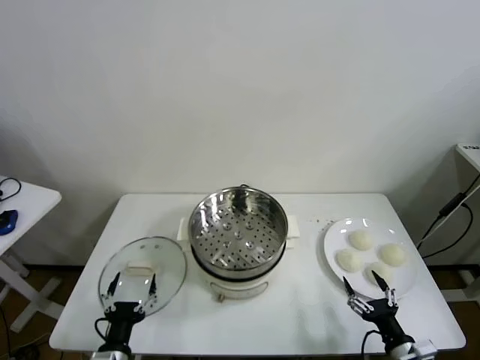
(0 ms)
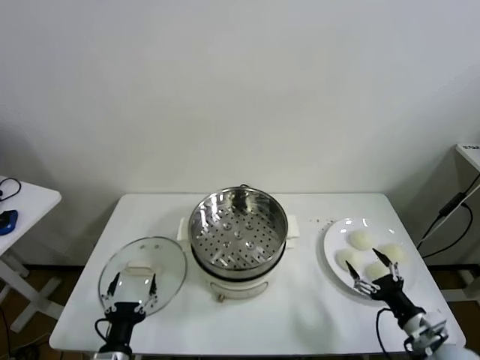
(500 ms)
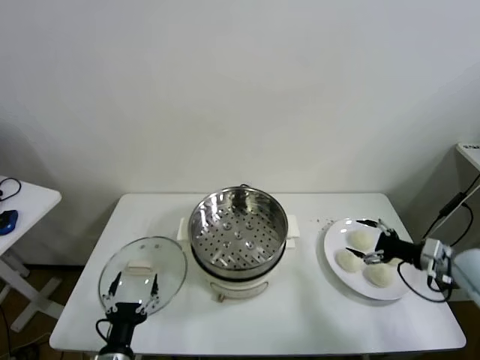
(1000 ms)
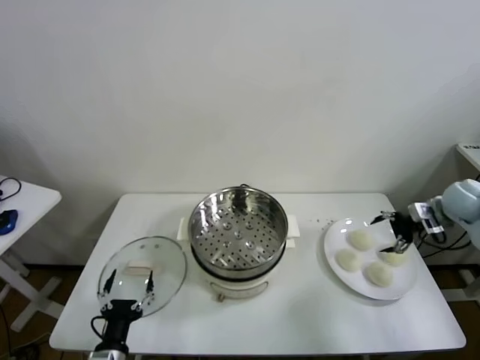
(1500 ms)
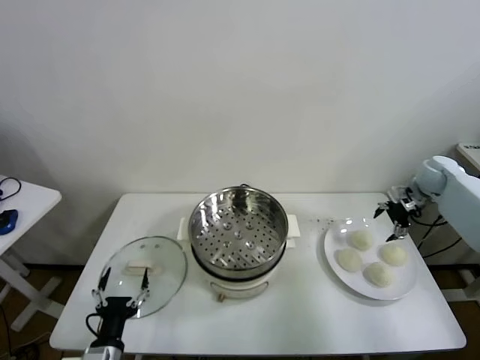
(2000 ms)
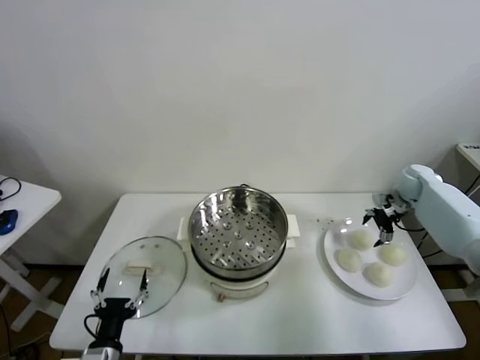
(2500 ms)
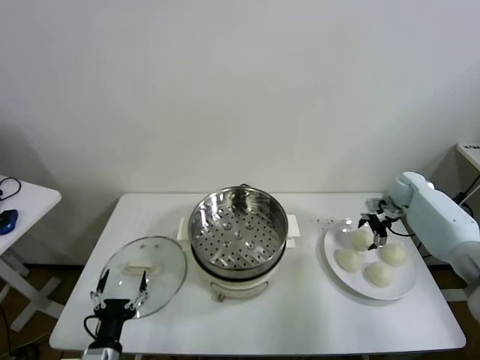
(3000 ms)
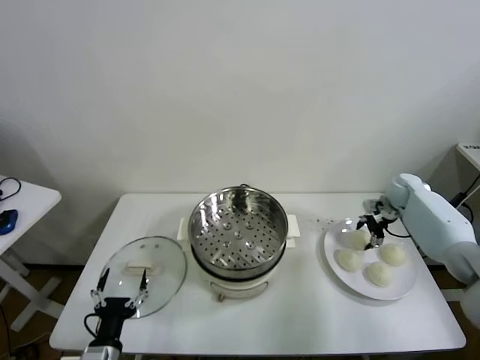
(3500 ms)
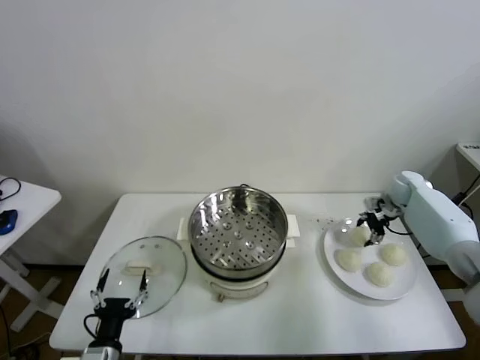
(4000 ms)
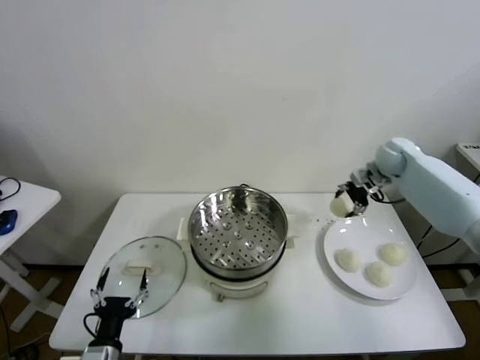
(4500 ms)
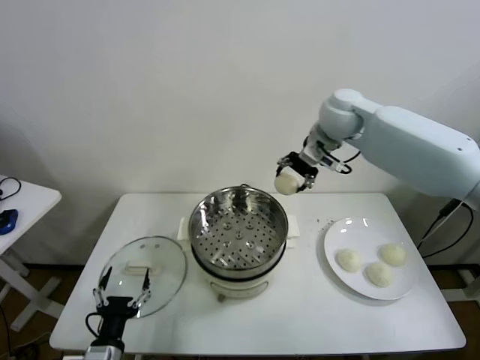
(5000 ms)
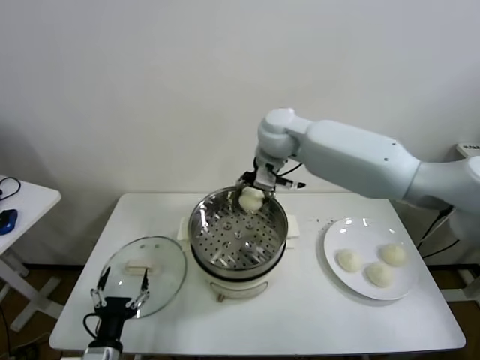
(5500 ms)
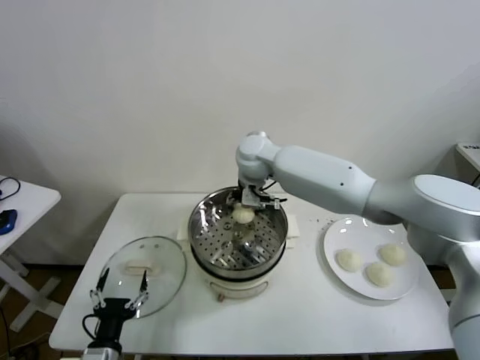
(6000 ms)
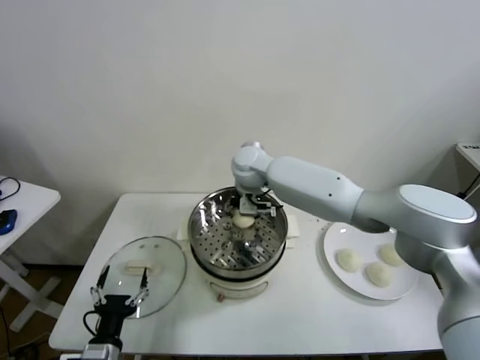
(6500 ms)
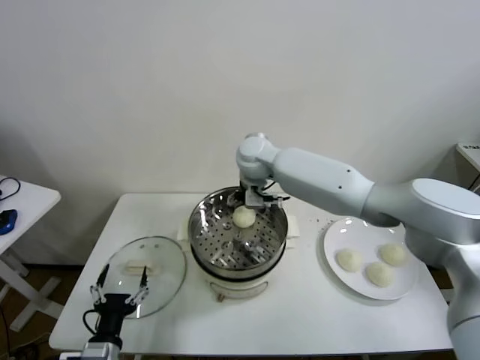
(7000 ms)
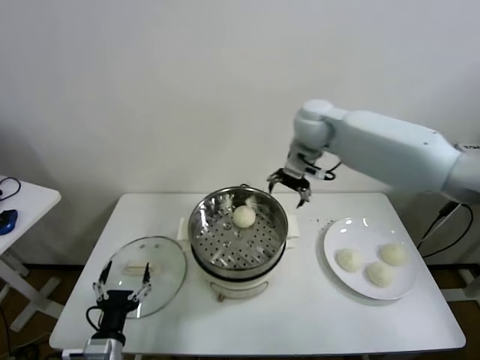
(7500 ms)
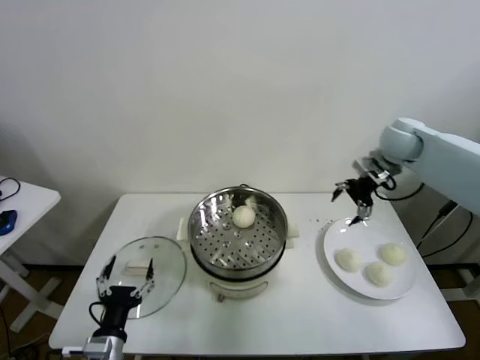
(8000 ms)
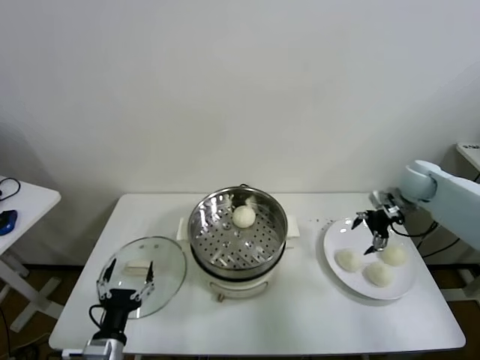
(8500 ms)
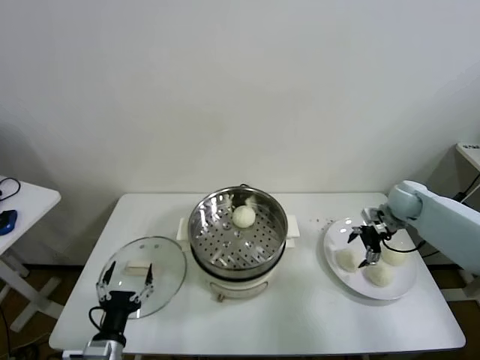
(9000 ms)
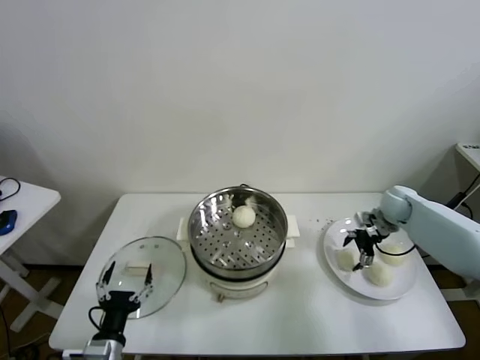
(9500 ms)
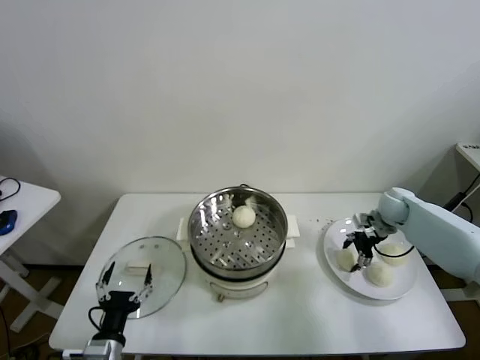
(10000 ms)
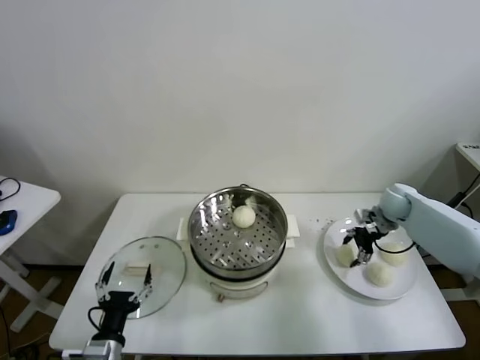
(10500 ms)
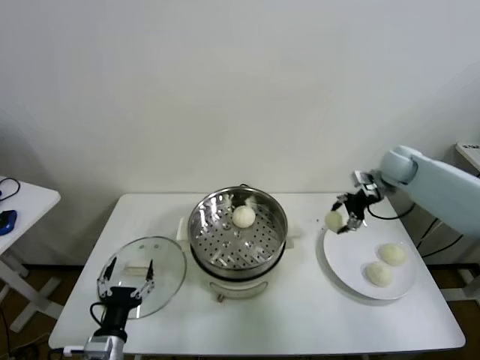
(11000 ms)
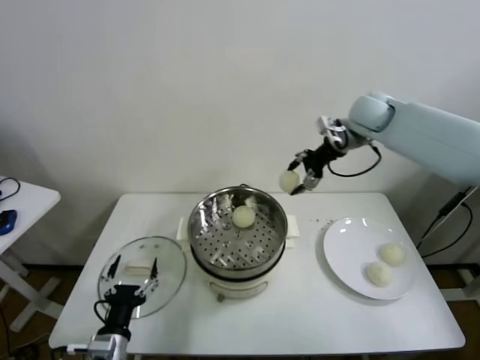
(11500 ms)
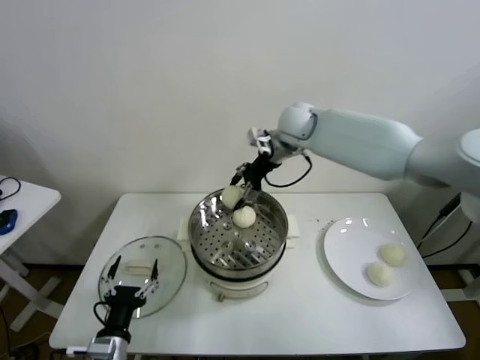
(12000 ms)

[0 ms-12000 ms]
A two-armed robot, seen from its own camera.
Task of the whole recording: take steamed baozi put them in steamer.
Step, 0 ms to 3500 ms: Grasp the baozi in the plate with right gripper.
Step, 4000 ms to 6500 ms: Place the baozi on the steamer with right gripper.
Step, 7500 ms to 10000 ms: Grasp the baozi in the plate with right gripper.
2000 ms to 4000 ms: The right gripper travels downward by some 5 cm, and closes.
4000 ms to 6000 ms: The right gripper shifts some 40 cm to the left.
6000 ms to 8000 ms: The right gripper heads to the right, covering some 35 cm, and opens.
8000 ms to 10000 ms: The right gripper shifts approximately 20 cm downward, and closes up.
10000 ms to 12000 ms: The right gripper goes roughly 35 cm to the left and upward.

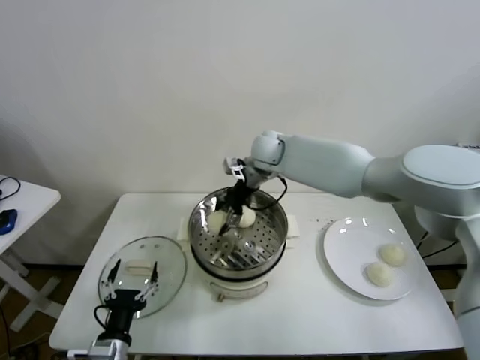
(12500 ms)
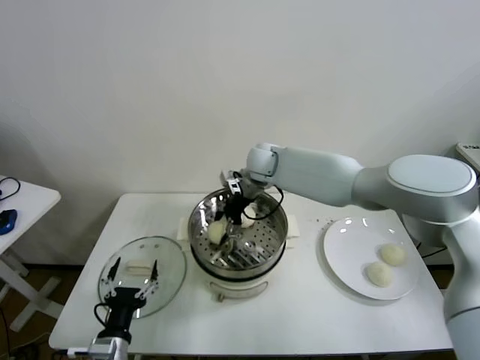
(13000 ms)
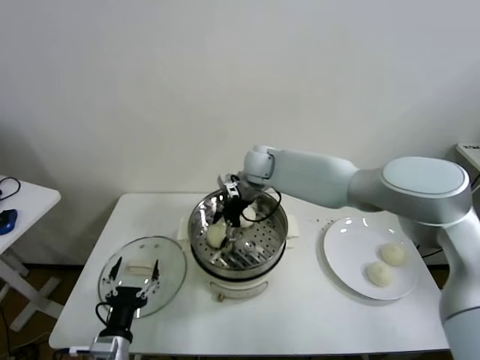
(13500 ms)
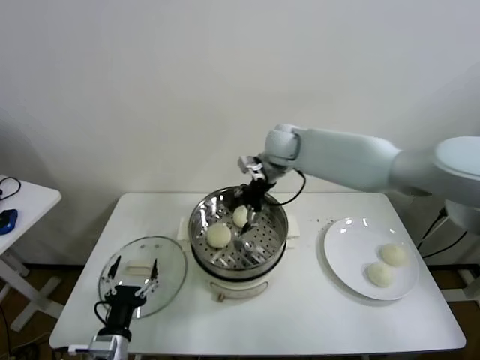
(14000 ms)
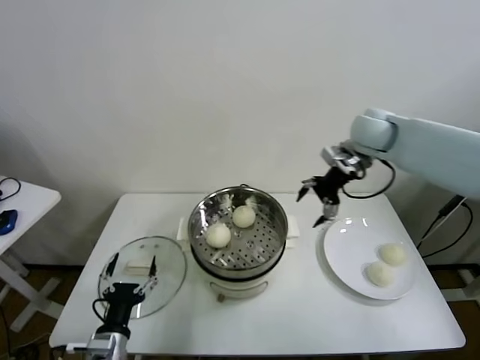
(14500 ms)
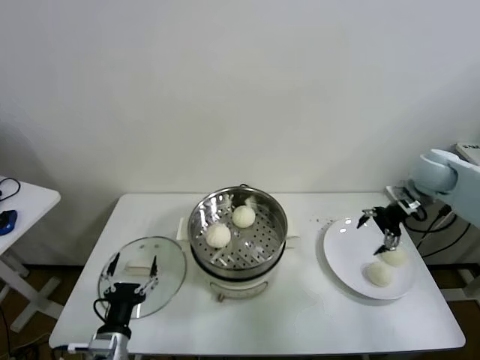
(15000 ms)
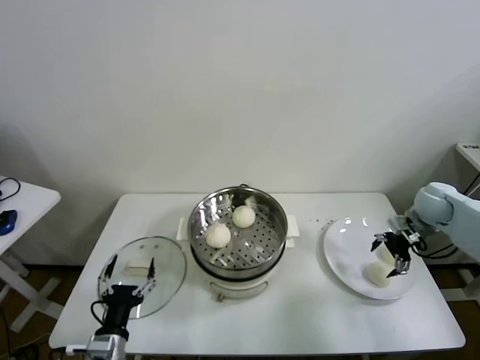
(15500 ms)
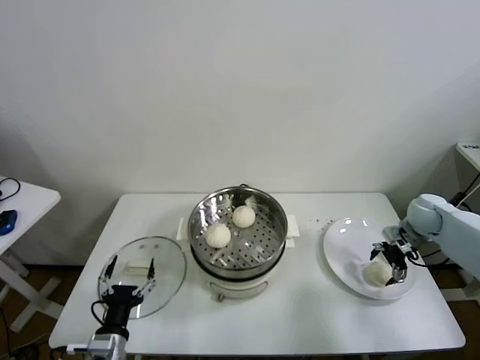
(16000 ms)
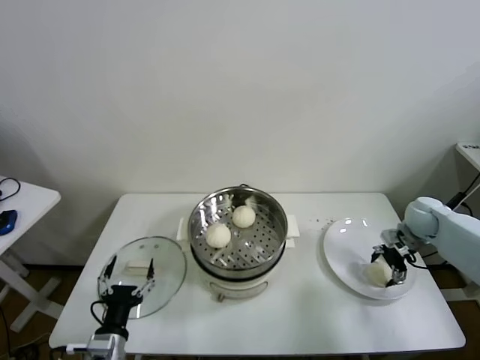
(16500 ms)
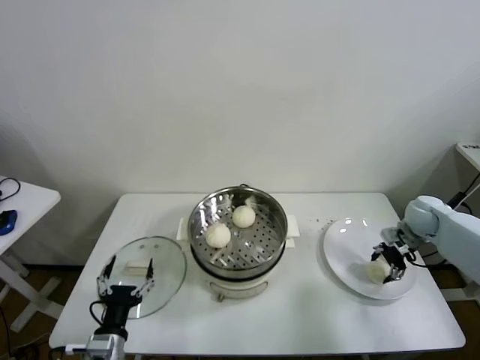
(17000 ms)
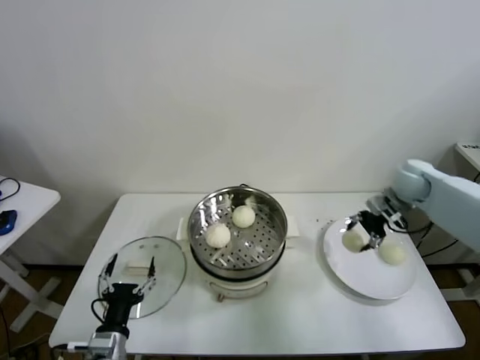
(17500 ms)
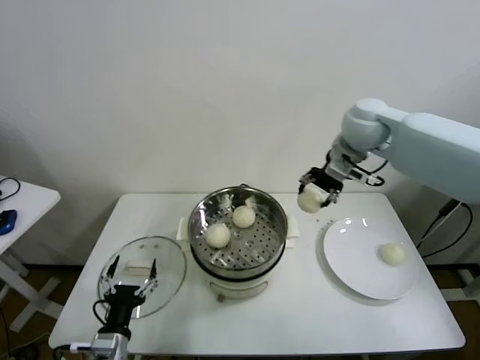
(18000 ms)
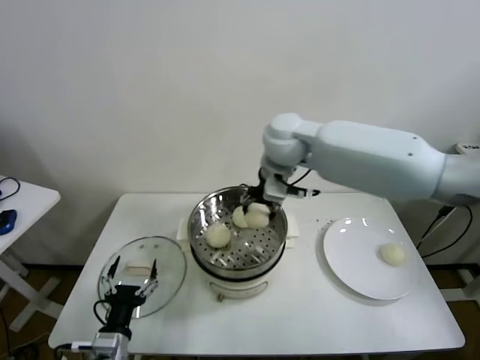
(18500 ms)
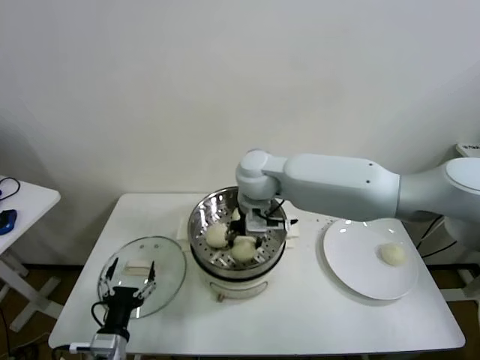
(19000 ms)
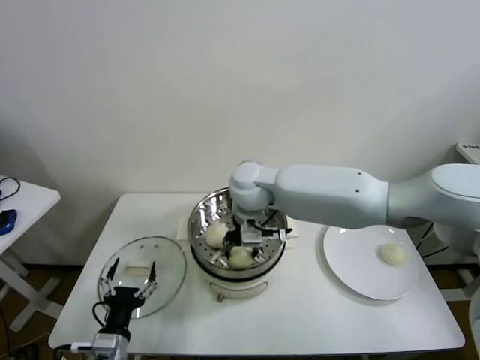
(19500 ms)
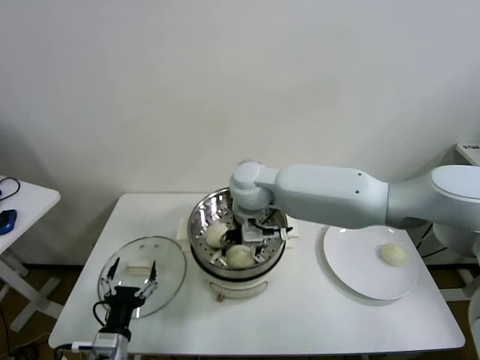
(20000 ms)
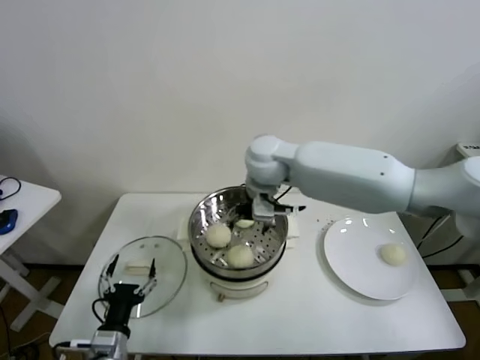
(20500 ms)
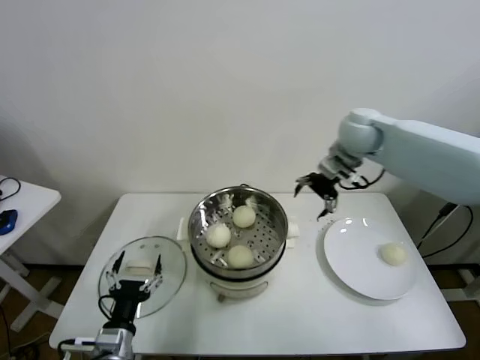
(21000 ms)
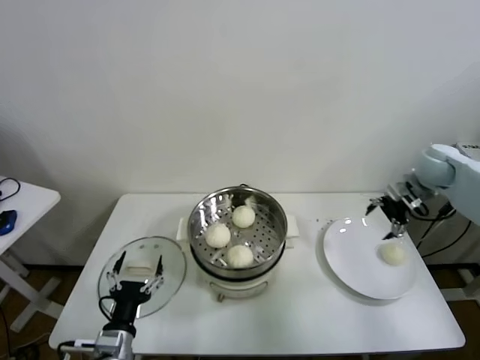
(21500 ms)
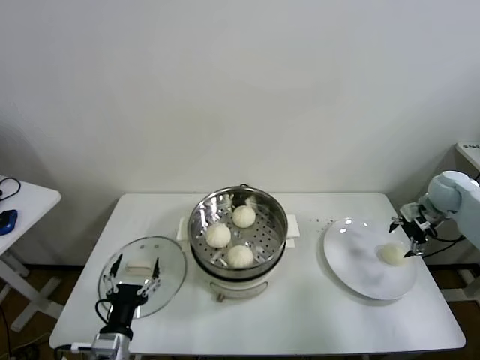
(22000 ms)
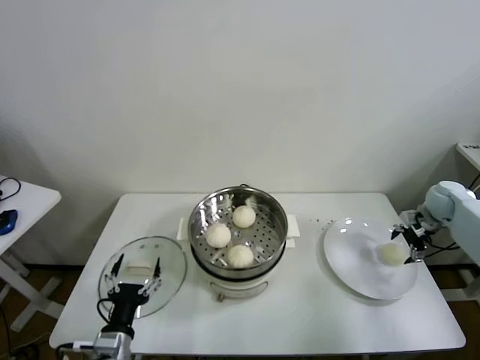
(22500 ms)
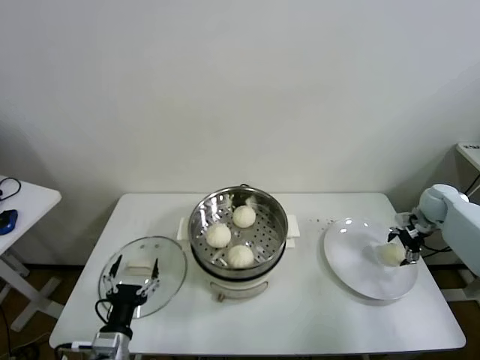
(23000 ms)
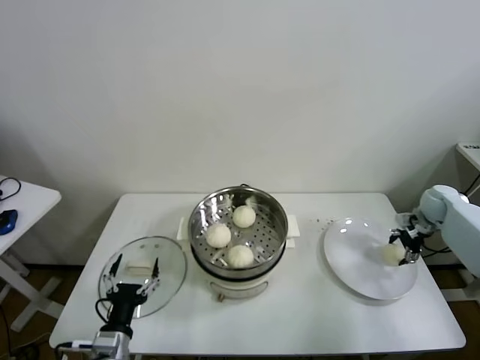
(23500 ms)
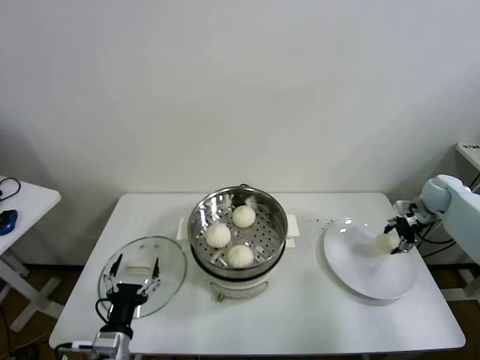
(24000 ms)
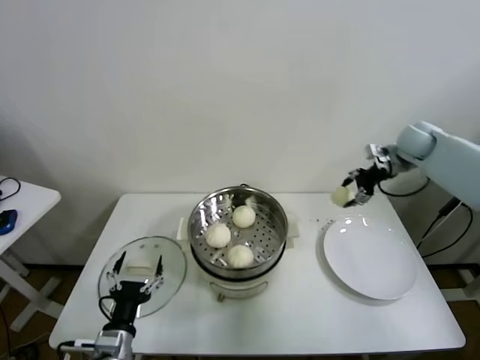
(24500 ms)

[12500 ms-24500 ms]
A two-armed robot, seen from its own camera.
Task of the whole recording: take steamed baozi put them in steamer.
Step, 14000 ms to 16500 ms: Grasp the baozi in the plate with right gripper.
Step, 17000 ms to 20000 ms: Place the baozi on the steamer with right gripper.
Step, 20500 ms to 23500 ms: Grasp the baozi in the plate with right gripper.
12500 ms to 14500 ms: The right gripper heads to the right, covering some 25 cm, and opens up.
14500 ms to 16500 ms: The right gripper shifts about 30 cm downward and to the right.
16500 ms to 18500 ms: The right gripper is displaced to the left and upward by roughly 40 cm, and closes up.
18500 ms to 20500 ms: The right gripper opens.
20500 ms to 22500 ms: The right gripper shifts approximately 50 cm to the right.
22500 ms to 24500 ms: The right gripper shifts about 20 cm upward, to the left and forward, and closes its fingers.

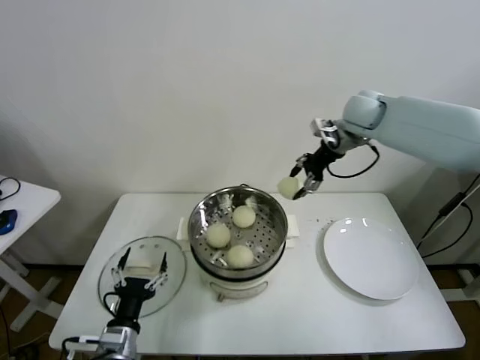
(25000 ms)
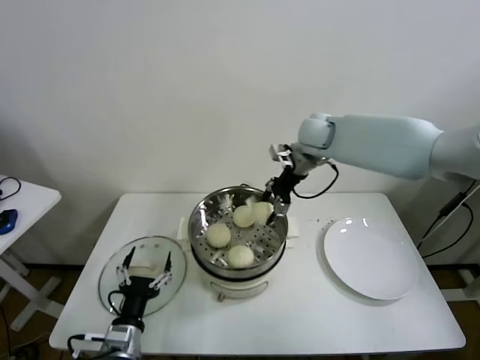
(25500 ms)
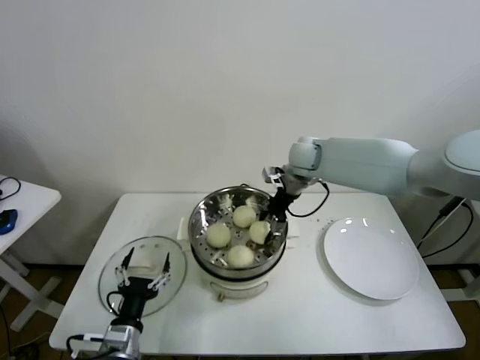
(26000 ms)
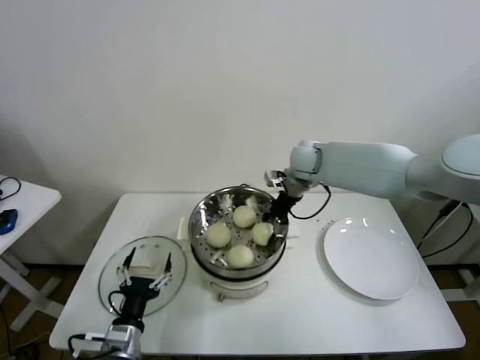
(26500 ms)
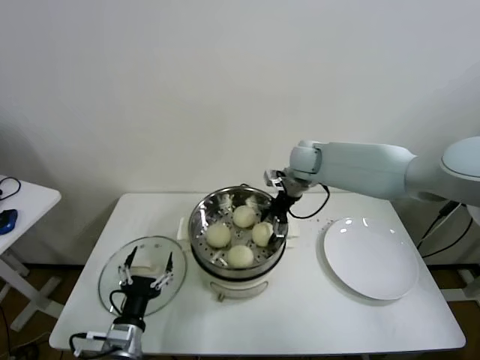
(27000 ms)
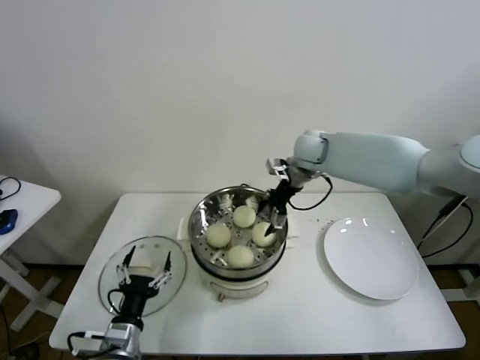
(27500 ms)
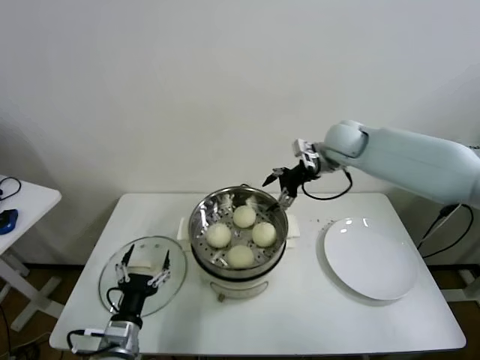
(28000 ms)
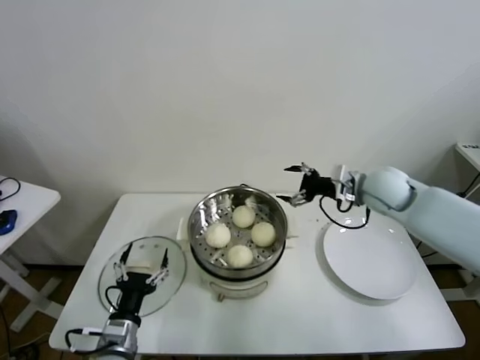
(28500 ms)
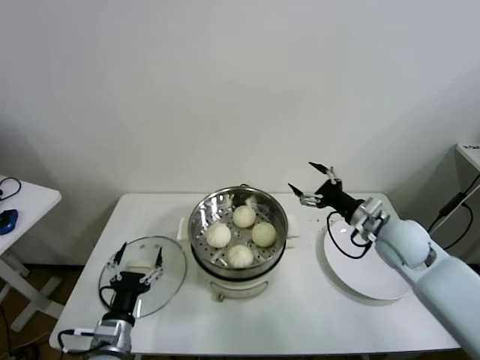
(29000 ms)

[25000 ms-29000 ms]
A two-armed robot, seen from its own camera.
Task of the whole recording: take steamed baozi put them in steamer.
Step, 25000 ms to 27000 ms: Place the baozi on the steamer with right gripper.
25000 ms to 27000 ms: The right gripper shifts roughly 15 cm downward and to the left, and opens its fingers.
27000 ms to 29000 ms: The right gripper goes roughly 25 cm backward and to the right.
